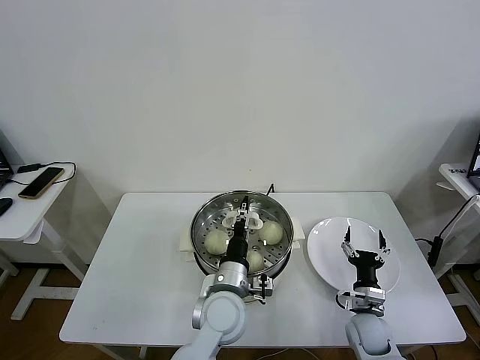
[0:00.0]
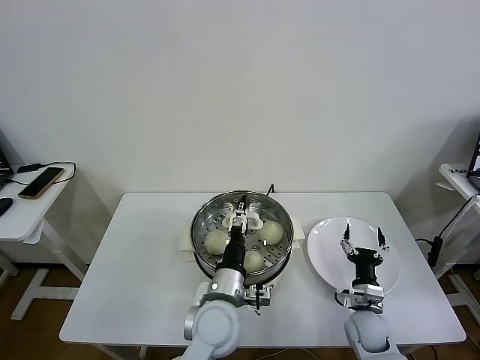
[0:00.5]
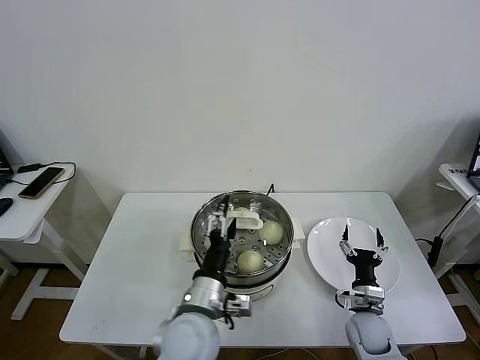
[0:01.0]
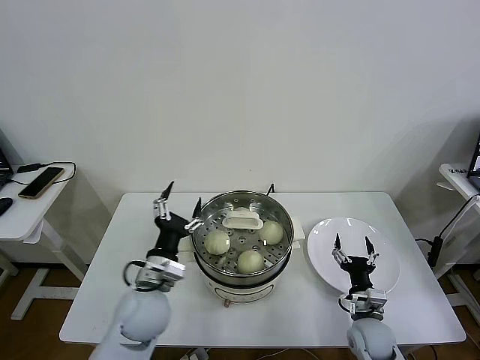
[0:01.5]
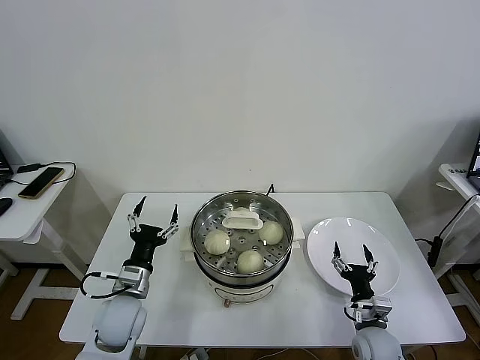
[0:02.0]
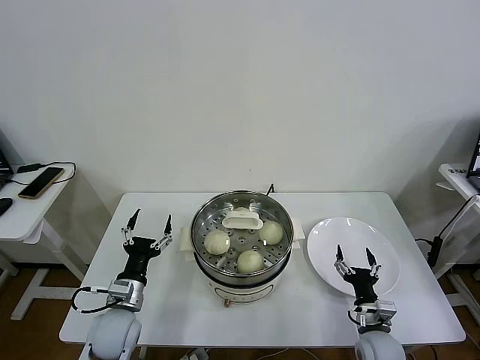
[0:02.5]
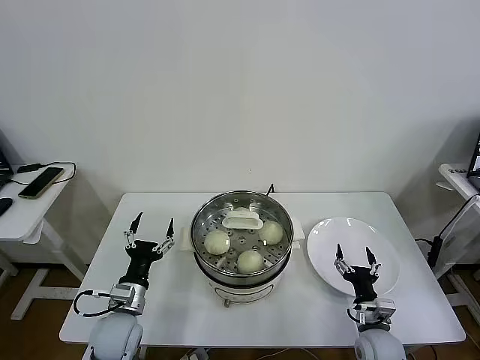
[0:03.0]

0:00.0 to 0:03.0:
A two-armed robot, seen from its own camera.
Task of the whole recording: take steamed baozi put them in steamer then cover it.
0:00.0 to 0:01.5: The left gripper travels to the left by roughly 15 cm, and opens up.
0:01.5 to 0:03.0: The left gripper moves to the left and downward, about 10 cm.
